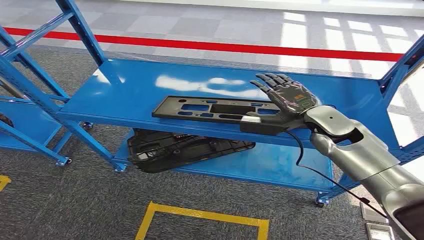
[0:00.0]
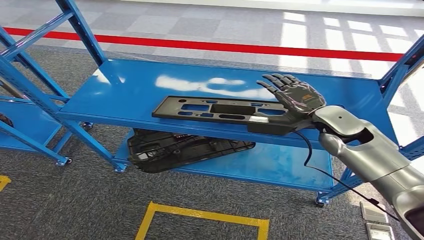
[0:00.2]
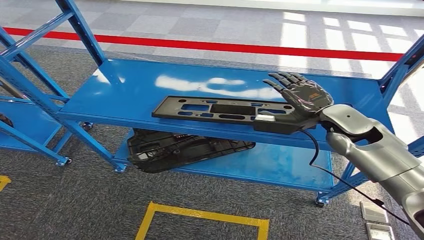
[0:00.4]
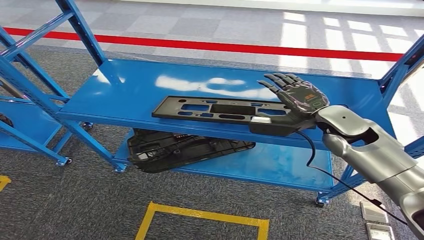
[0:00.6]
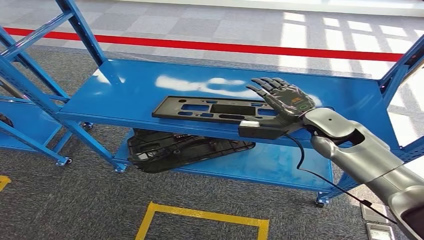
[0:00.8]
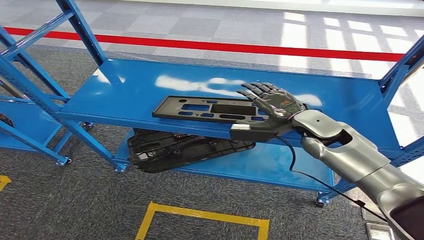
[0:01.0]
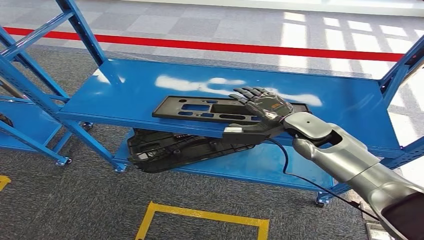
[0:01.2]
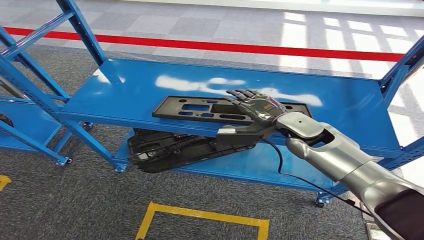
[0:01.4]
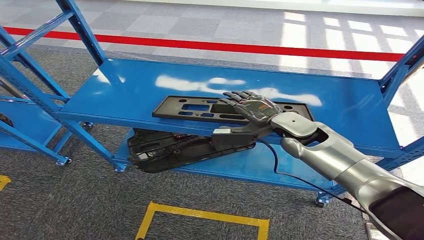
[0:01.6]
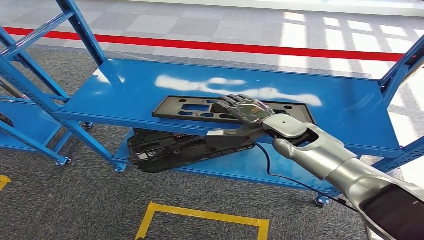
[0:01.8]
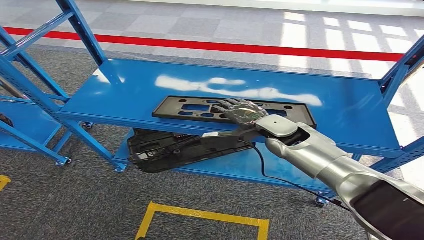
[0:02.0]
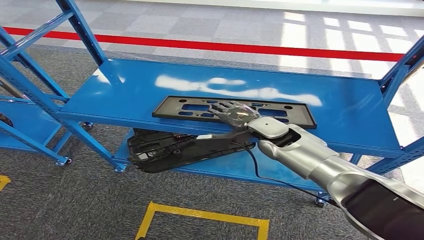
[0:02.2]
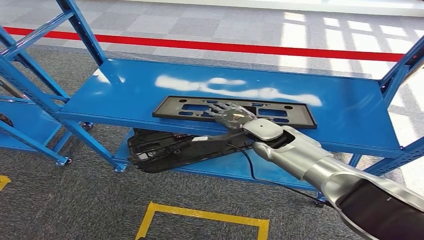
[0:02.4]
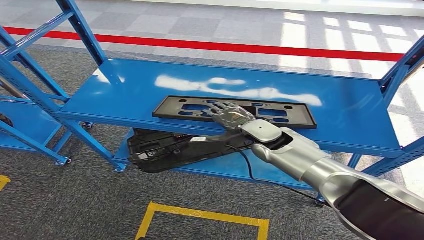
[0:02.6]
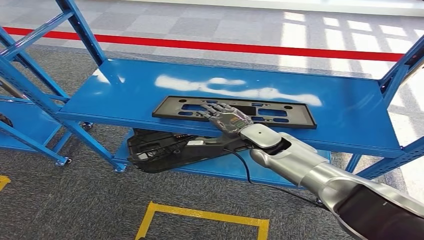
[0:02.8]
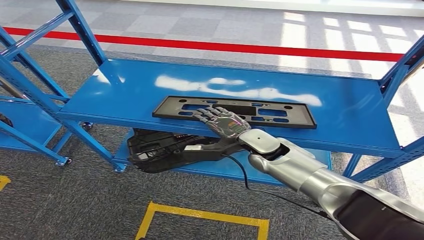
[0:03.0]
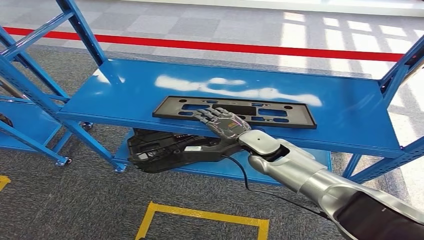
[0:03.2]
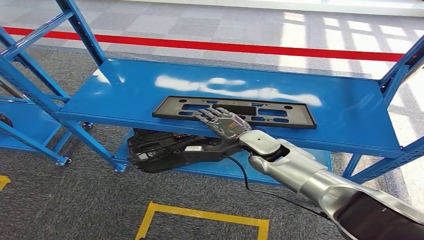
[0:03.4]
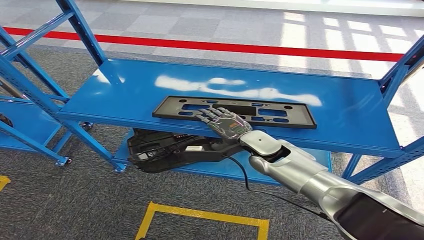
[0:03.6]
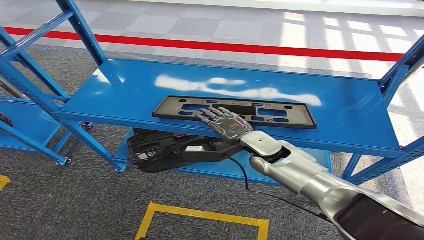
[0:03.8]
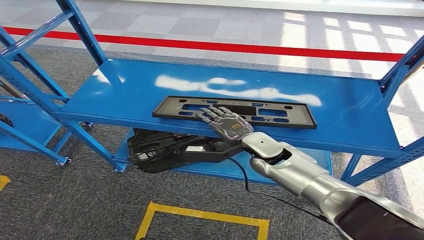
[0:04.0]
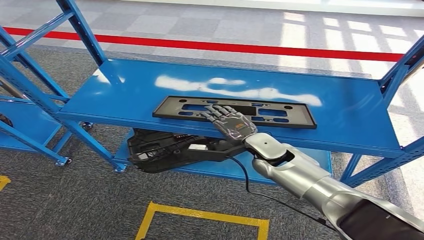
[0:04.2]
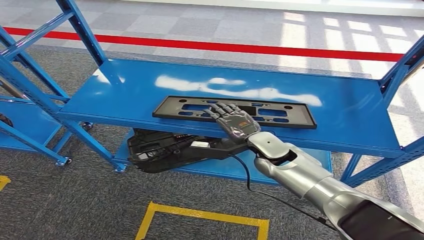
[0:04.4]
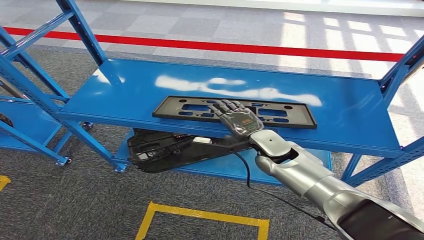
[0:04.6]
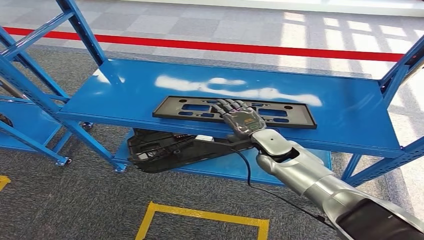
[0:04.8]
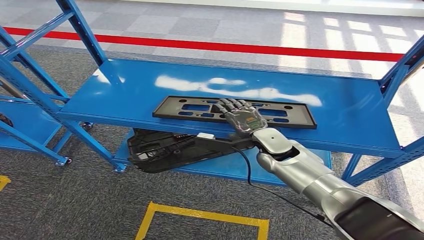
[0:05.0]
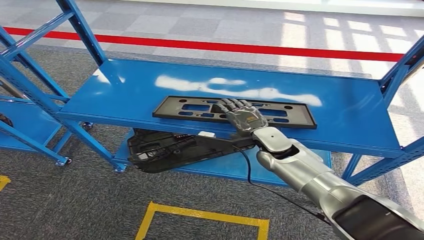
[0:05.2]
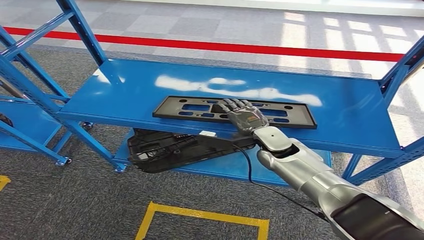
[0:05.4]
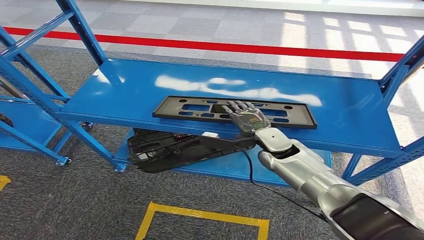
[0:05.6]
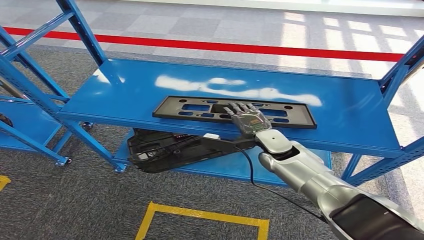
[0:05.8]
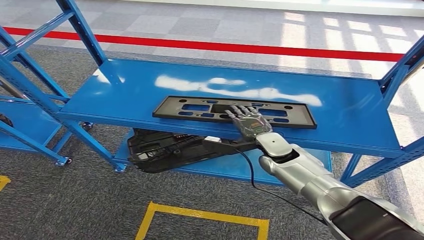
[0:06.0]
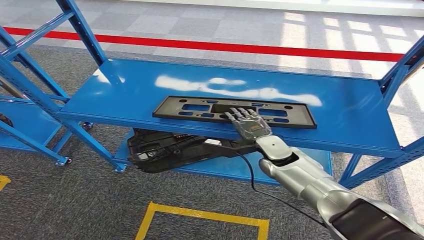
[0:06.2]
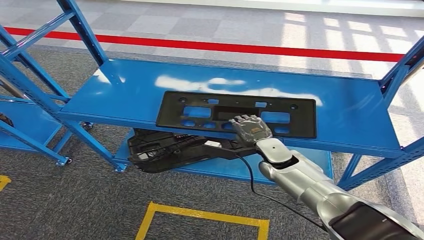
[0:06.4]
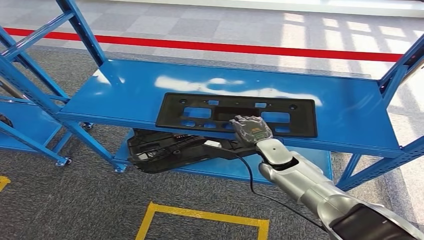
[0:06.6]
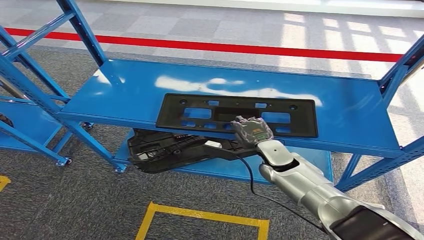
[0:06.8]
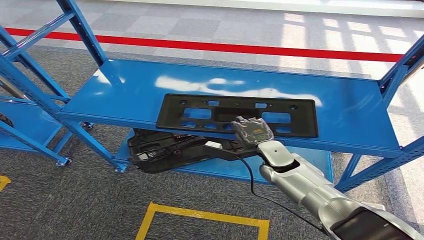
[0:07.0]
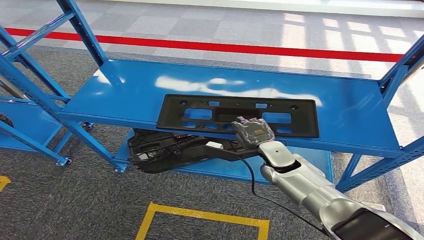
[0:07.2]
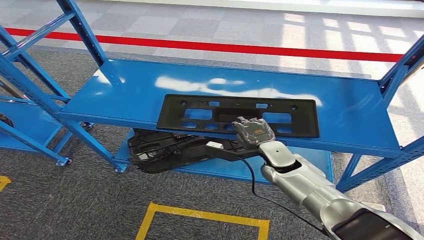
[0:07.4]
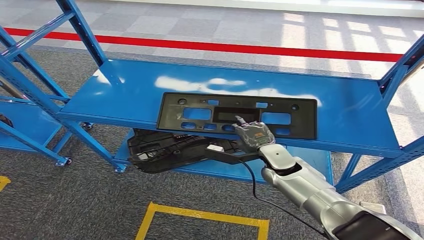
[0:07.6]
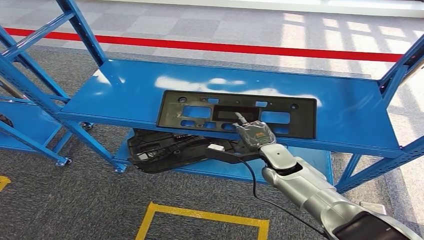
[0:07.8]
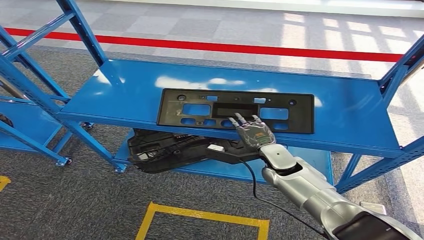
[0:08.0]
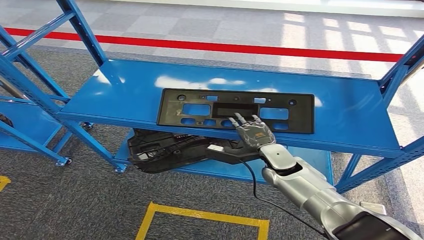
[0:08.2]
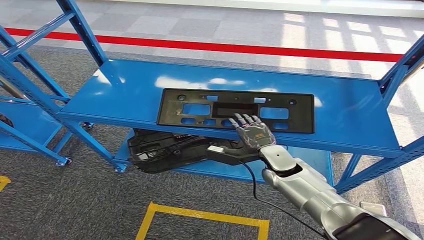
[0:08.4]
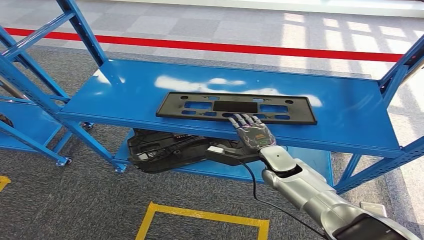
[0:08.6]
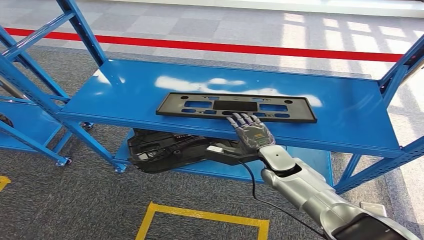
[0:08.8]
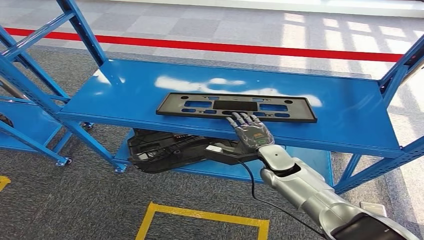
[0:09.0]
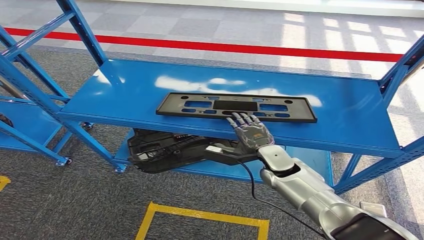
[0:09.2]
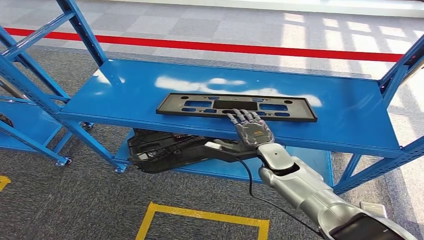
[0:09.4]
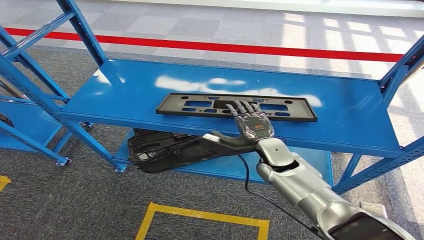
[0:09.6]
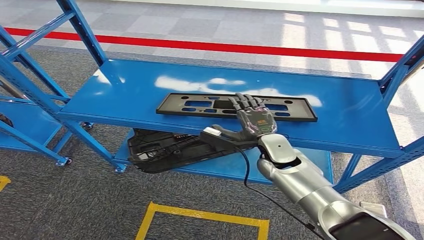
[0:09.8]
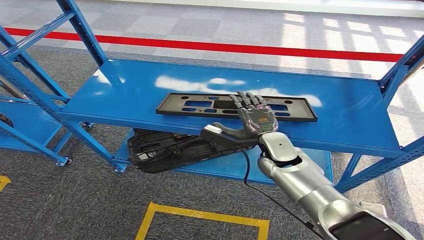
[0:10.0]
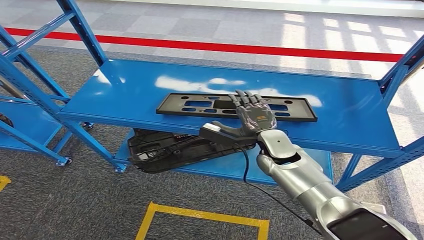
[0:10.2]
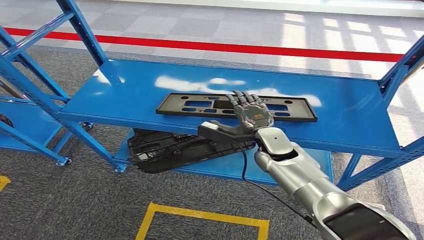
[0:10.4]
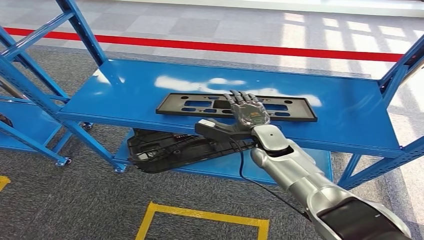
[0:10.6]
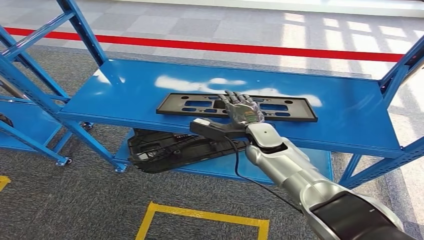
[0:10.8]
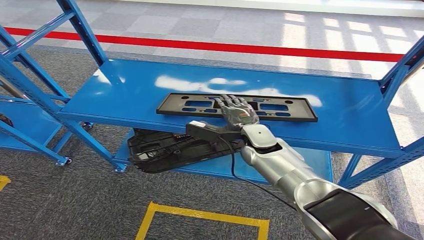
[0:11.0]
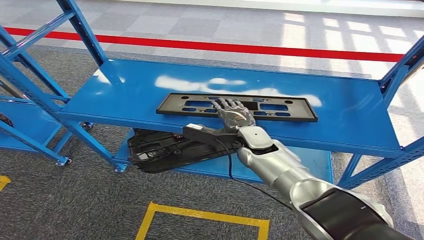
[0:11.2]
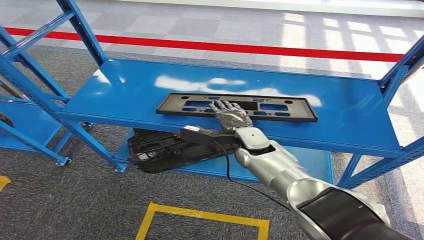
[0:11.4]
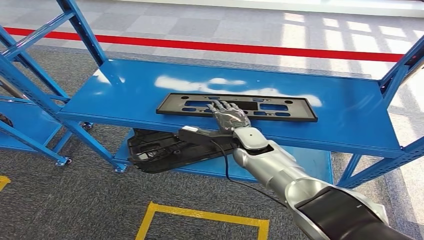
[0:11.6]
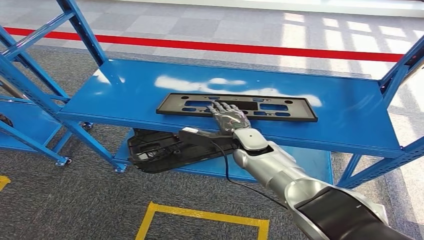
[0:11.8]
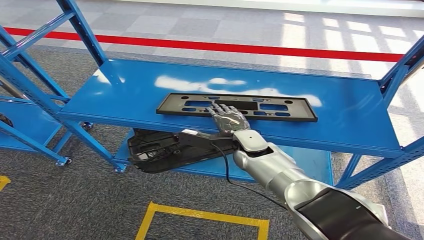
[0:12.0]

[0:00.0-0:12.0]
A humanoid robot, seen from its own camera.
0:01.6 to 0:03.0: The right hand goes about 10 cm to the left and downward.
0:03.0 to 0:06.0: The hands make only small movements.
0:06.0 to 0:07.6: The hands move only a little.
0:07.6 to 0:09.0: Neither hand changes place.
0:09.0 to 0:10.4: The right hand moves upward, roughly 5 cm.
0:10.4 to 0:12.0: The right hand shifts by approximately 5 cm.

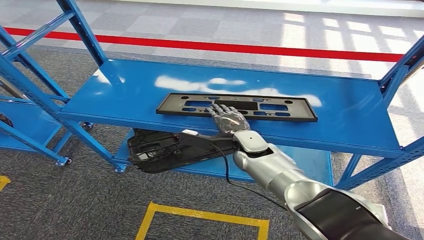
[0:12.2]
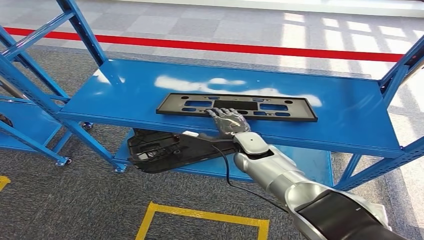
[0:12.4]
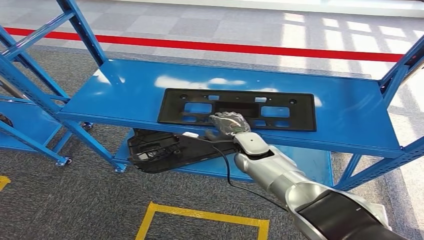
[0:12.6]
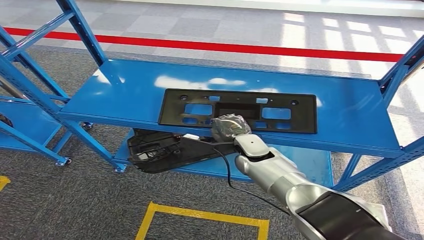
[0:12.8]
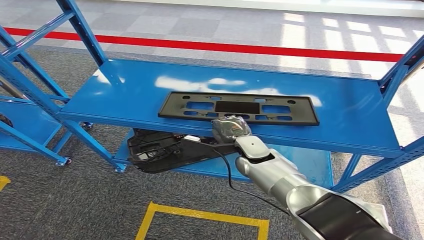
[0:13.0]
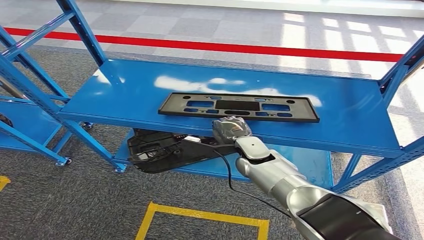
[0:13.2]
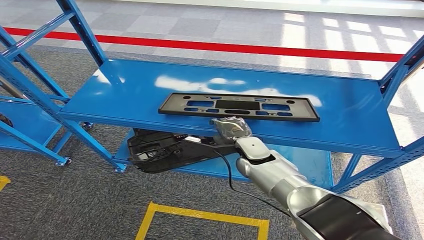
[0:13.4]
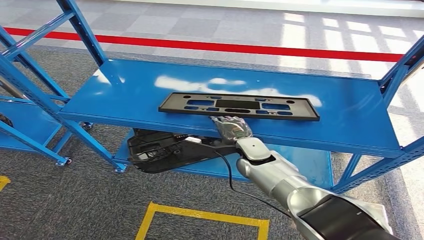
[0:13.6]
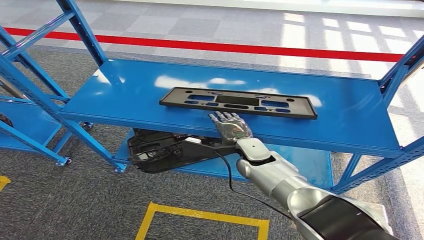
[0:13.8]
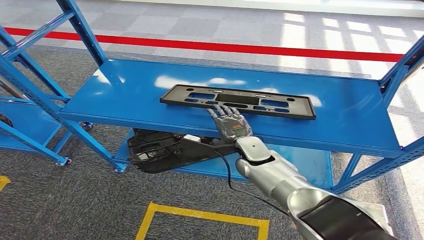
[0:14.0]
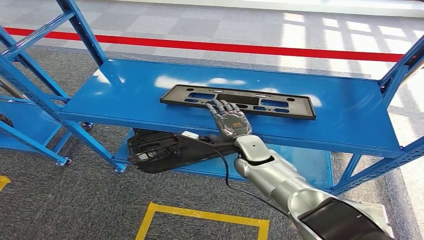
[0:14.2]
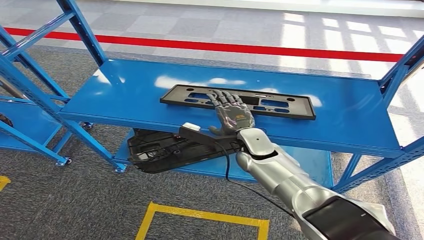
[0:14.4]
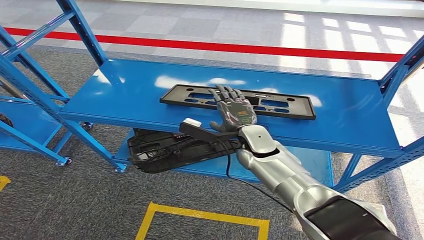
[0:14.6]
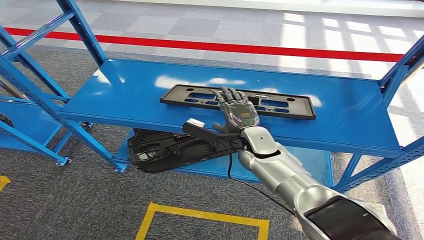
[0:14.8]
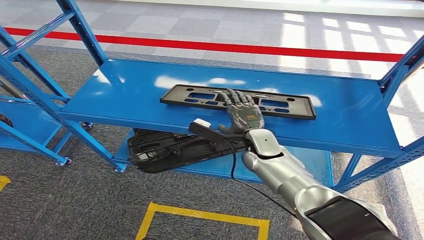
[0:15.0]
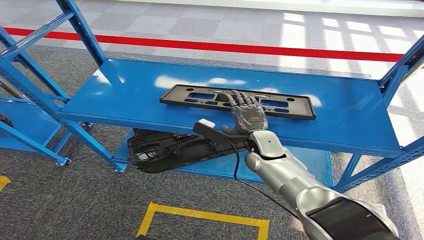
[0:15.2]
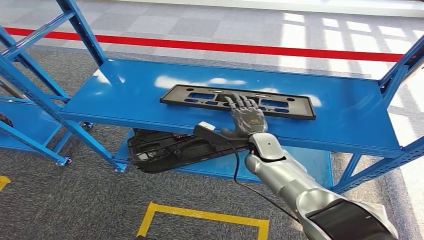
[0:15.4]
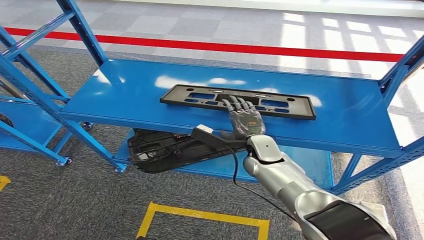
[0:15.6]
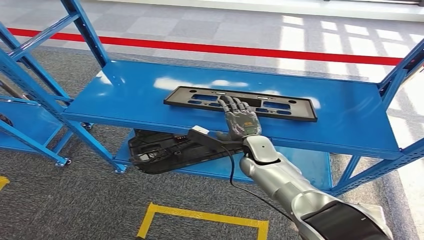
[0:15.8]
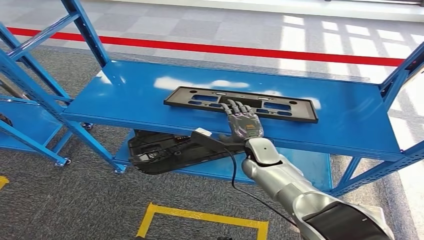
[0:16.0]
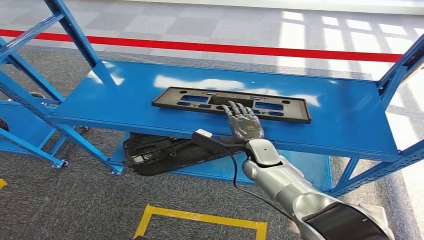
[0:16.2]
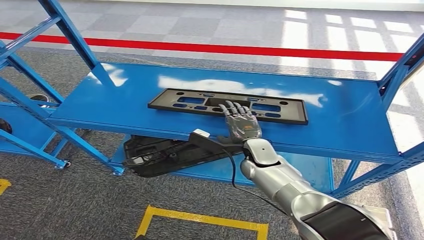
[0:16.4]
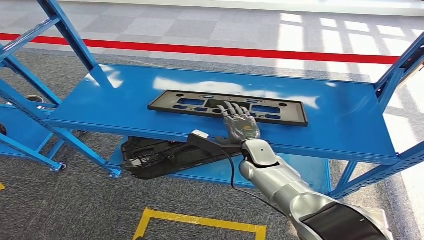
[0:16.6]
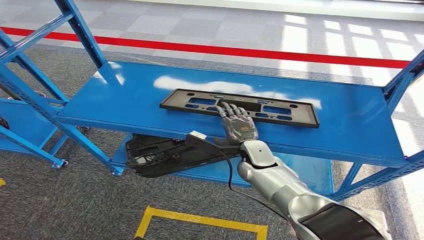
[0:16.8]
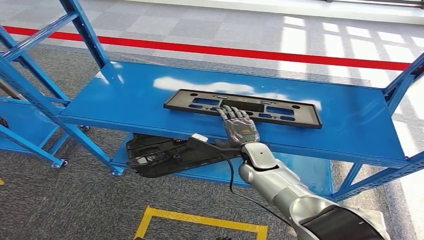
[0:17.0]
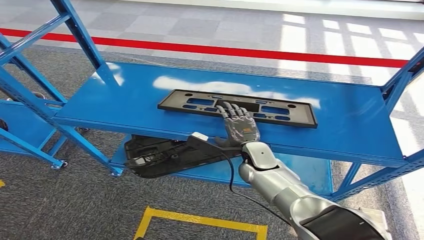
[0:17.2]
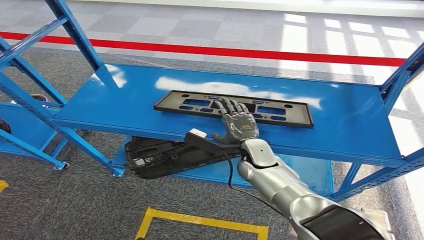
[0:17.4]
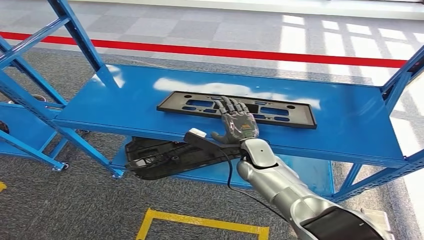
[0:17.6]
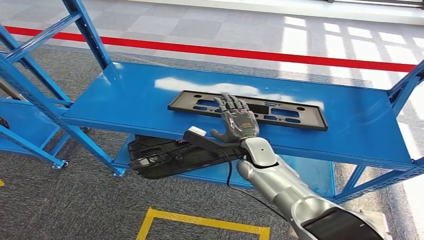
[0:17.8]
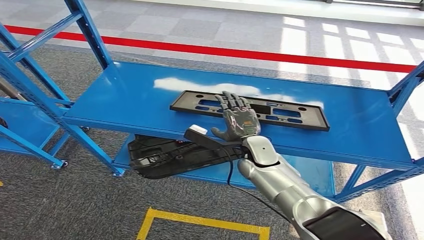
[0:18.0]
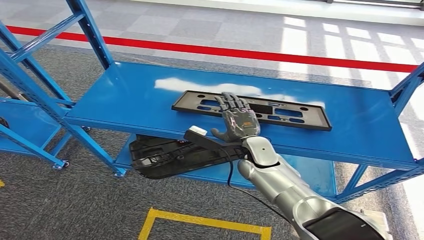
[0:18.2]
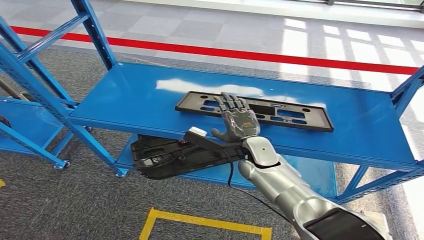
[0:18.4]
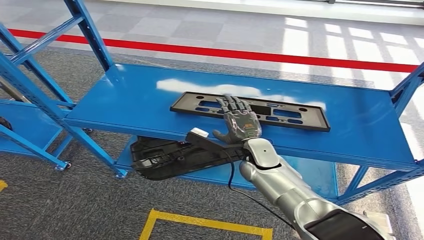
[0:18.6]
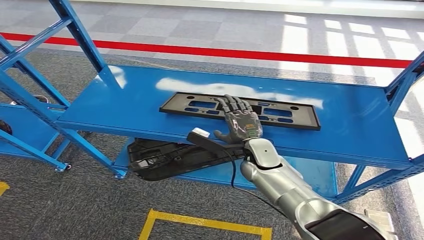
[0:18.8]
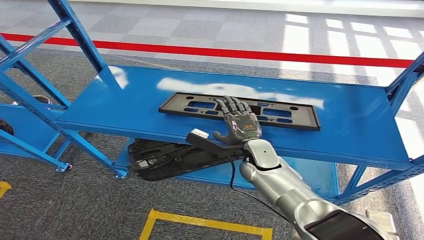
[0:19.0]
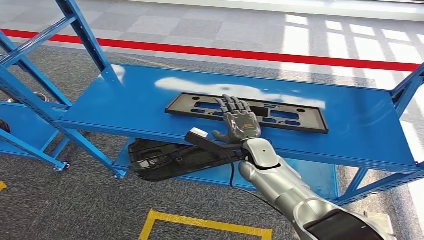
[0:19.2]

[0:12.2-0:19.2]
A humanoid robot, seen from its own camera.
0:12.2 to 0:15.0: The hands move only a little.
